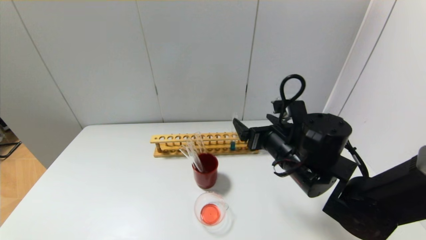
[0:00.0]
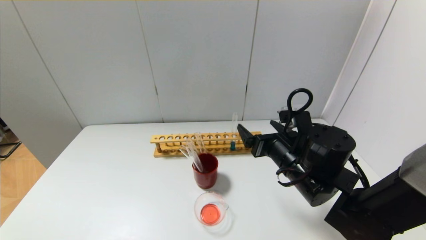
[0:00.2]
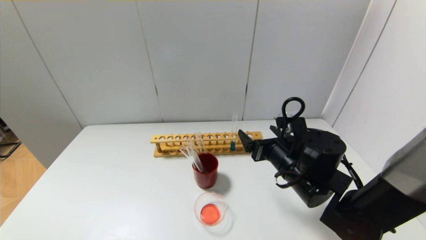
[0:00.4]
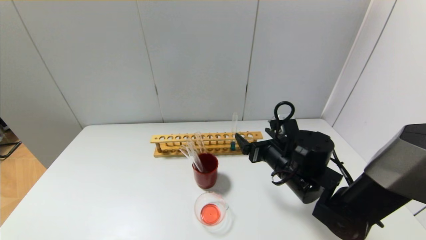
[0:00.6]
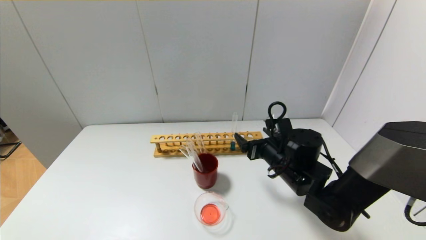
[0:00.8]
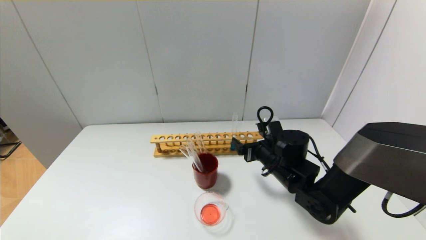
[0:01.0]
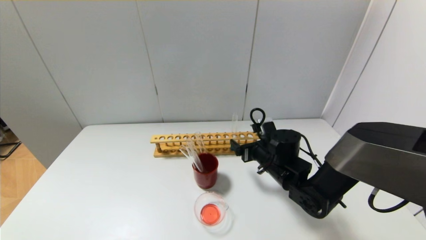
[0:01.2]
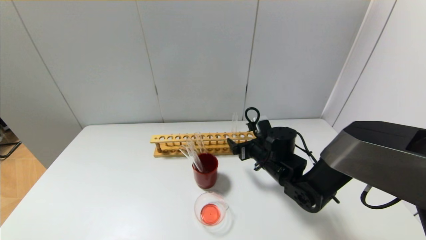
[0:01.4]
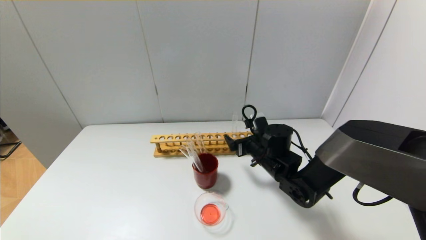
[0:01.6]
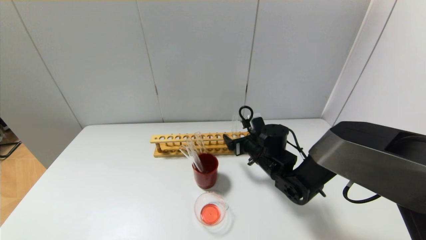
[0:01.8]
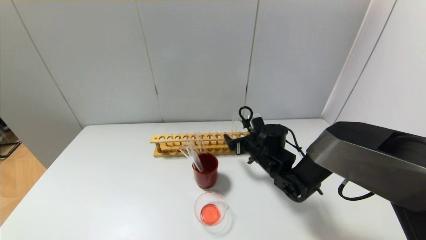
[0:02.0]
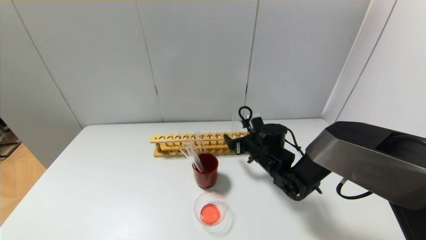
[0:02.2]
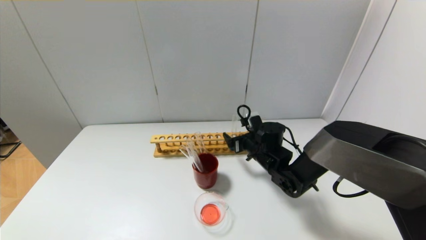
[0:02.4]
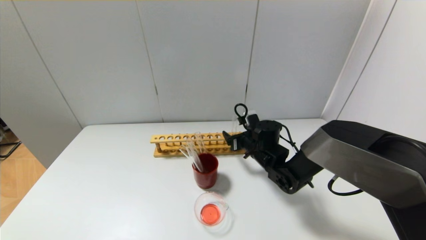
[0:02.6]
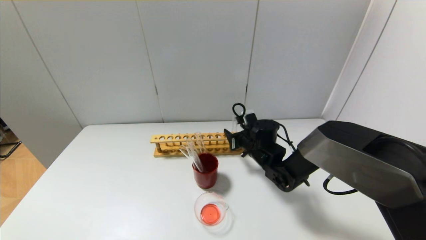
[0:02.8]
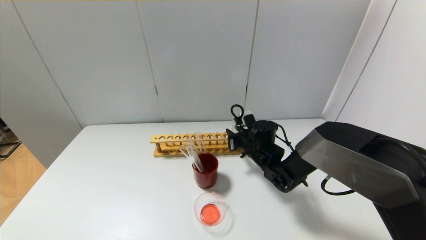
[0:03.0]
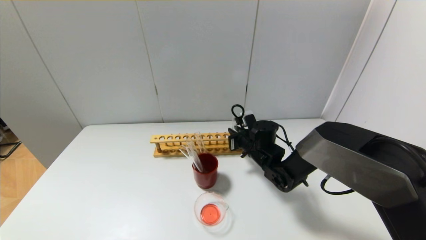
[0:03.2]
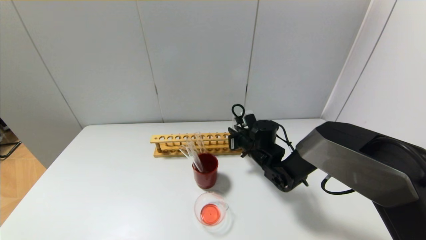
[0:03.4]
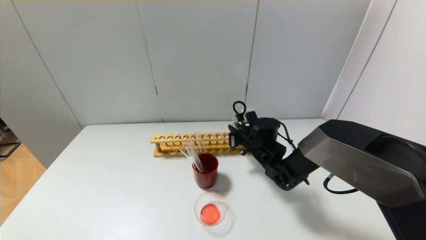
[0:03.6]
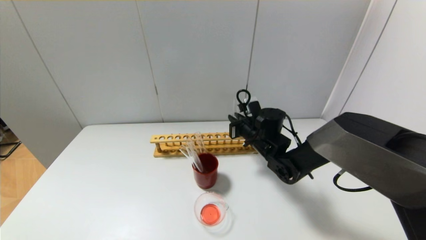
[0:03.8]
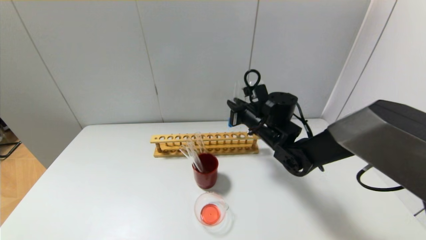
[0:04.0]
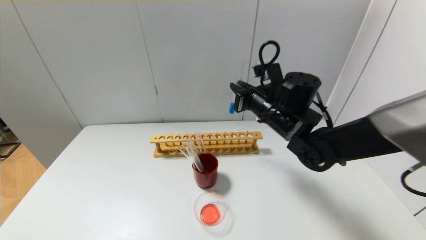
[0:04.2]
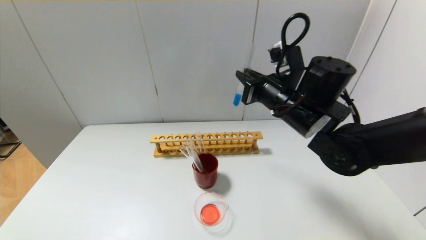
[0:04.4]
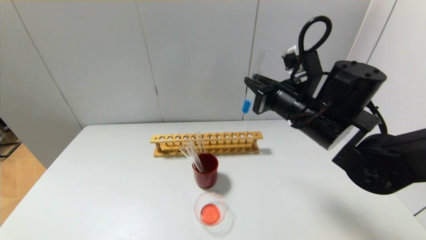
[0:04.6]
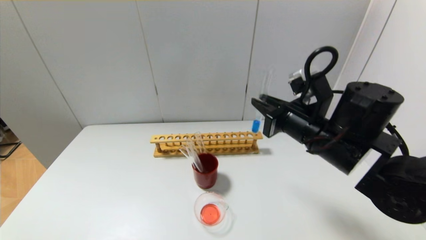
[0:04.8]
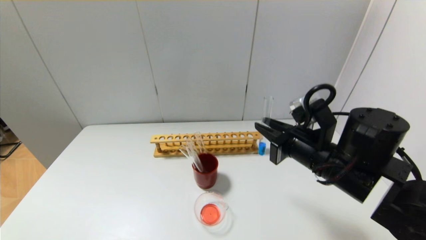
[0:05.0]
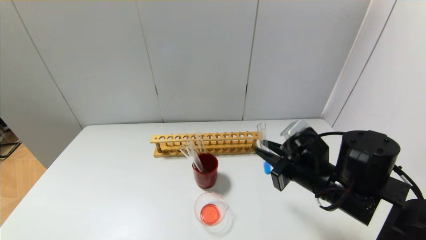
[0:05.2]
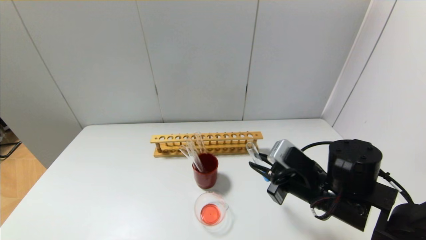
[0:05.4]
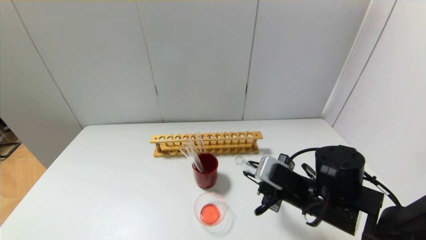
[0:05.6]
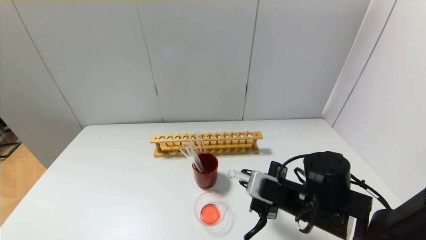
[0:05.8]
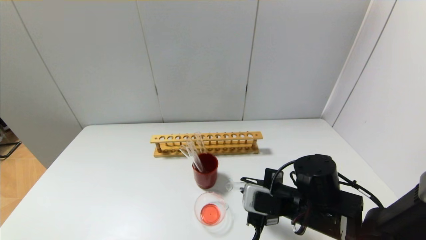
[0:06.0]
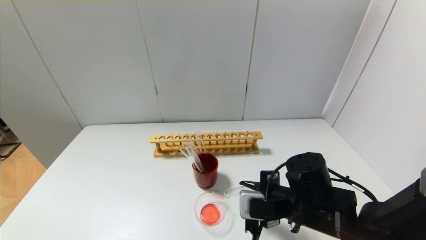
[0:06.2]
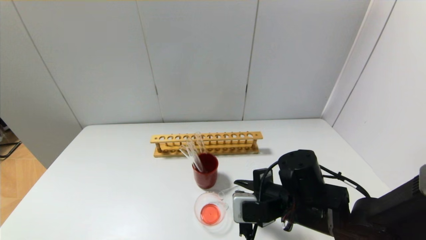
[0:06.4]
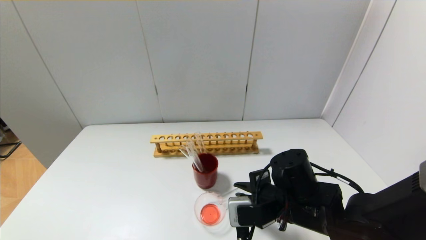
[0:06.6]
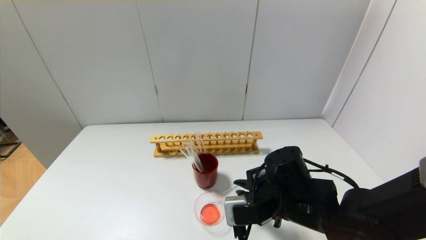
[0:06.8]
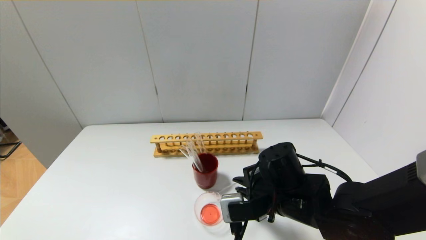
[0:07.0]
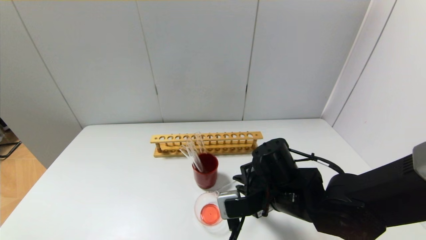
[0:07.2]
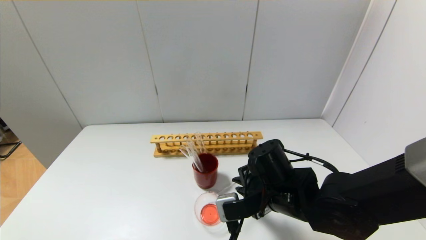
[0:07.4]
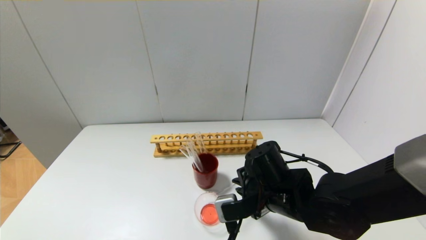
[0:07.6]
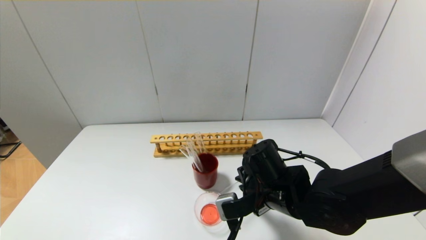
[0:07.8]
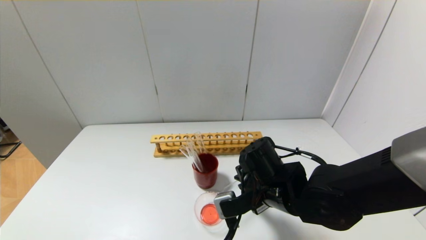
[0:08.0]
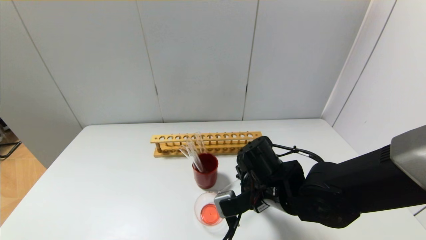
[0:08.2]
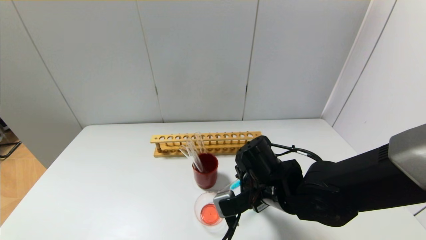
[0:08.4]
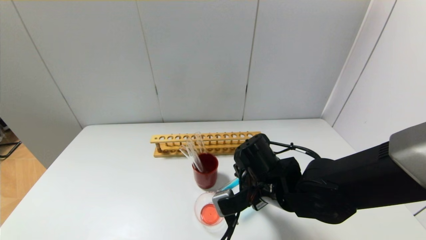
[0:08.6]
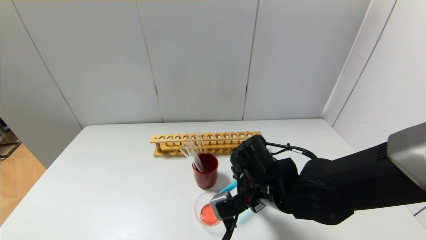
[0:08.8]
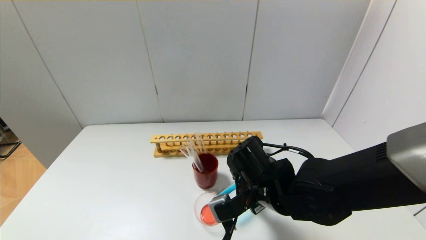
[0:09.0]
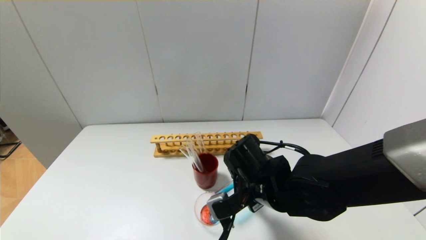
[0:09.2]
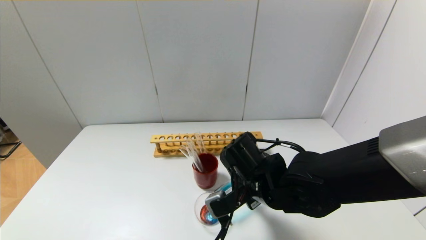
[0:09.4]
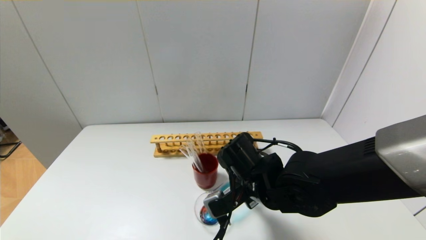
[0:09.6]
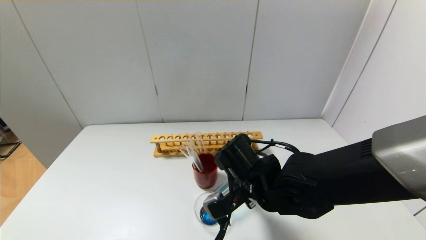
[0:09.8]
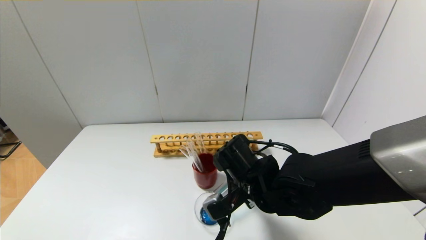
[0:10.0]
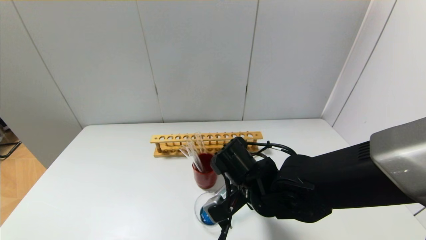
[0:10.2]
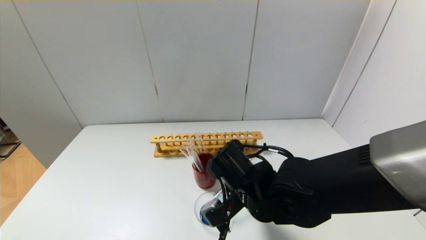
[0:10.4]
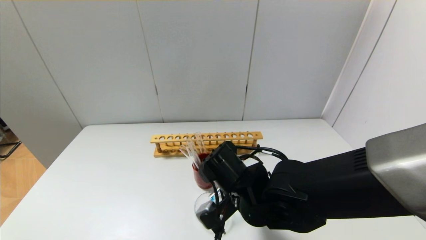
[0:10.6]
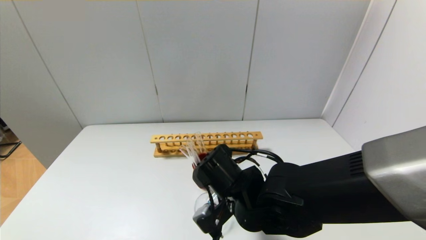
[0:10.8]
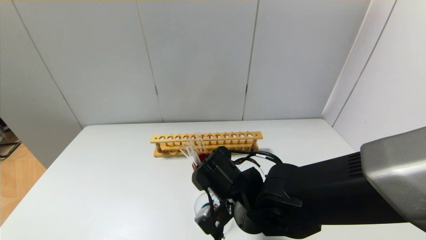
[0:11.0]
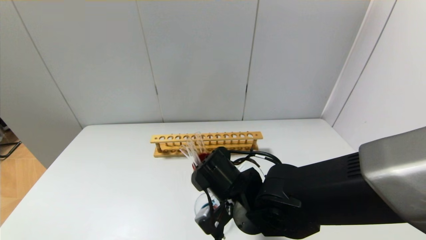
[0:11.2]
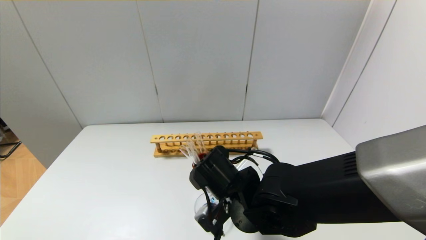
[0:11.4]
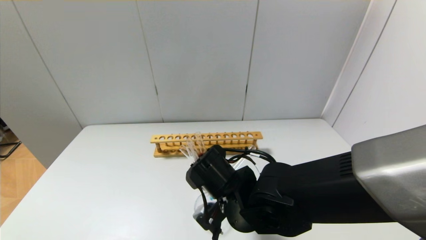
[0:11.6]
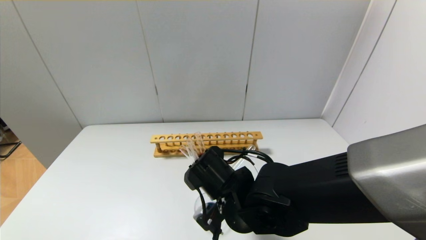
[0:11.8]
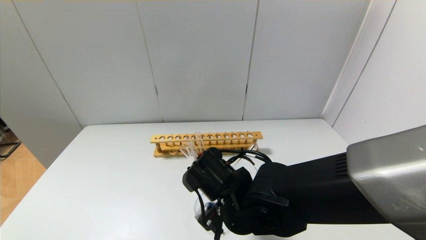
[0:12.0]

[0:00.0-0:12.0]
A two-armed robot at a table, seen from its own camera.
Step, 0:00.0 to 0:03.2: Grasp the blue reagent with the right gripper.
0:00.0 to 0:01.6: The right gripper travels forward and downward by approximately 15 cm.
0:01.6 to 0:03.0: The right gripper changes place by roughly 5 cm, and closes up.
0:03.0 to 0:04.4: The right gripper is displaced upward and backward by some 20 cm.
0:04.4 to 0:06.0: The right gripper goes some 20 cm downward and backward.
0:06.0 to 0:07.6: The right gripper heads to the left, covering about 5 cm.
0:07.6 to 0:09.0: The grippers stay close to where they were, moving slightly.
0:09.0 to 0:10.4: The grippers move only a little.
0:10.4 to 0:12.0: The grippers stay close to where they were, moving slightly.

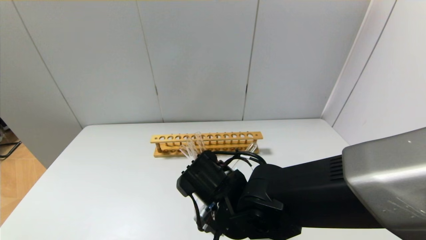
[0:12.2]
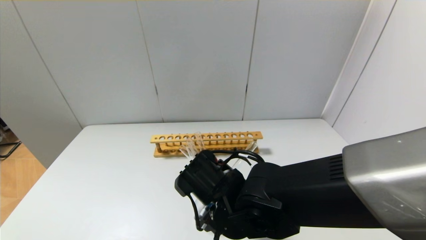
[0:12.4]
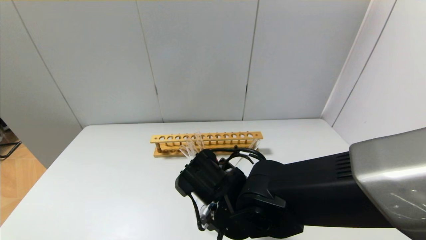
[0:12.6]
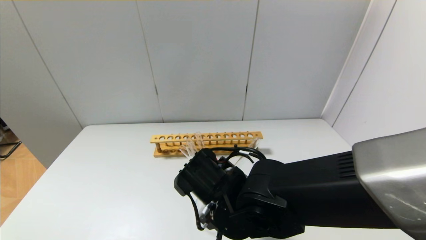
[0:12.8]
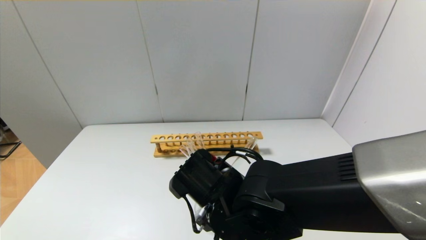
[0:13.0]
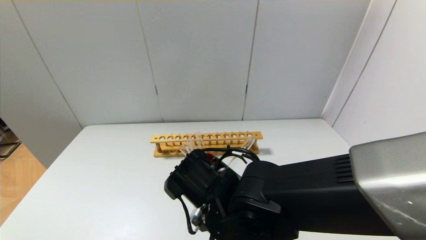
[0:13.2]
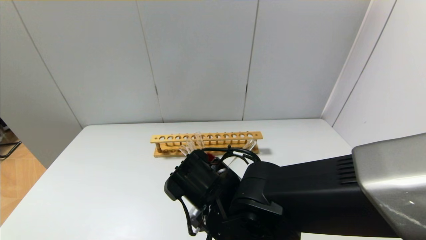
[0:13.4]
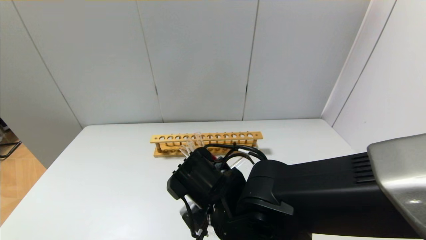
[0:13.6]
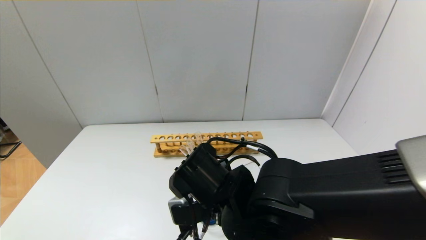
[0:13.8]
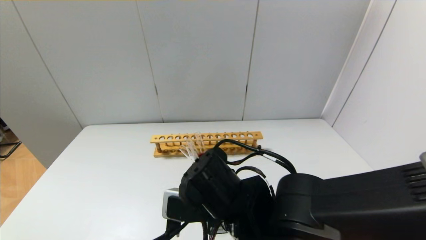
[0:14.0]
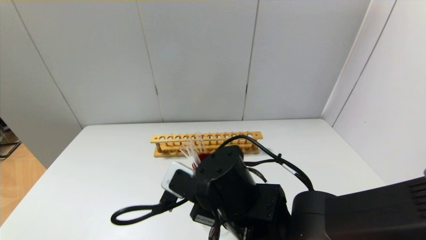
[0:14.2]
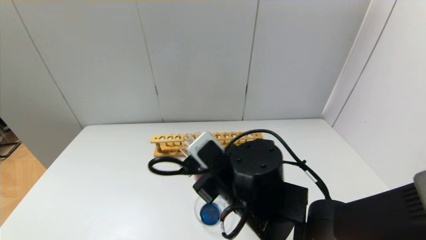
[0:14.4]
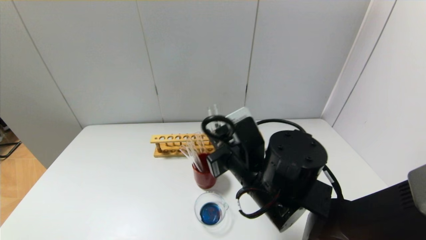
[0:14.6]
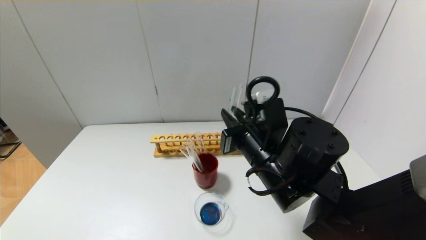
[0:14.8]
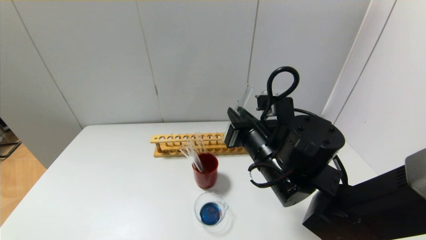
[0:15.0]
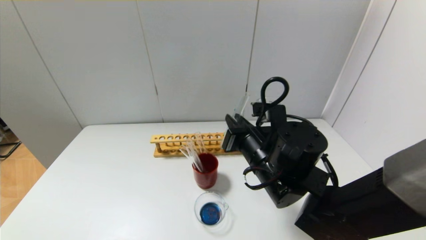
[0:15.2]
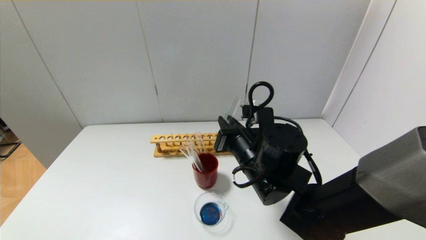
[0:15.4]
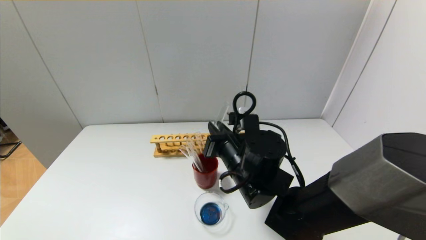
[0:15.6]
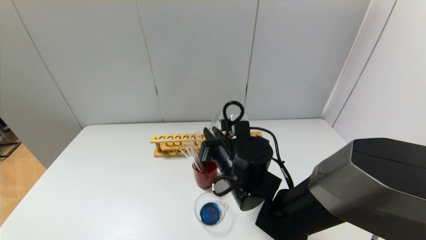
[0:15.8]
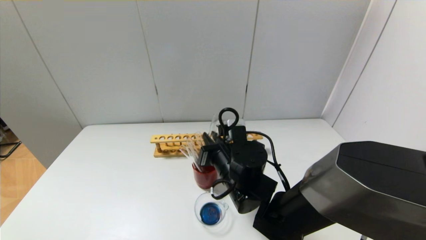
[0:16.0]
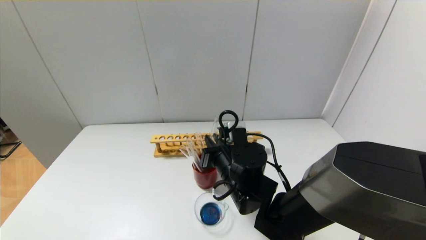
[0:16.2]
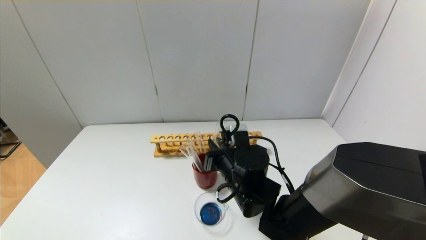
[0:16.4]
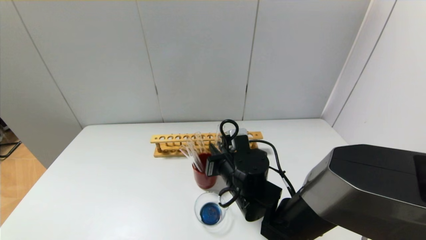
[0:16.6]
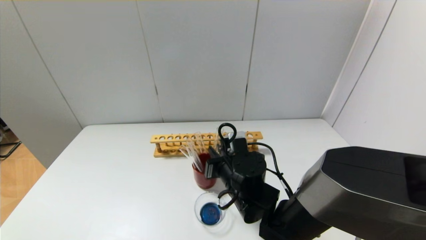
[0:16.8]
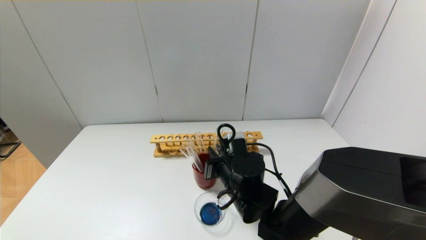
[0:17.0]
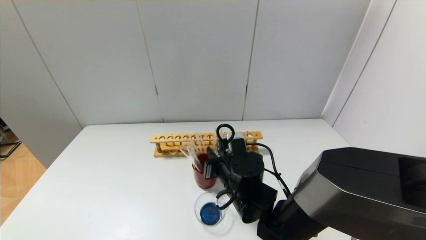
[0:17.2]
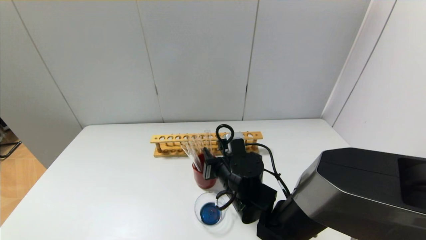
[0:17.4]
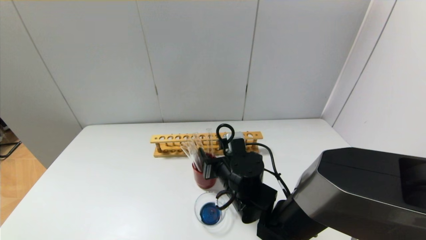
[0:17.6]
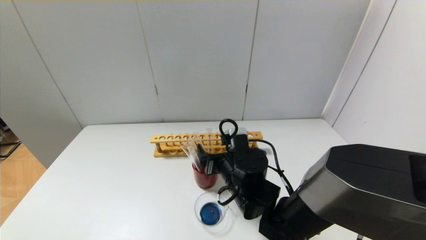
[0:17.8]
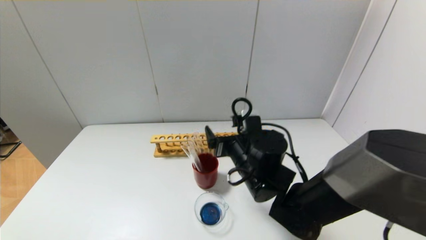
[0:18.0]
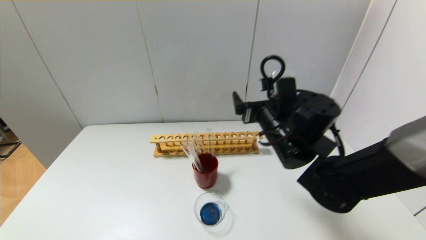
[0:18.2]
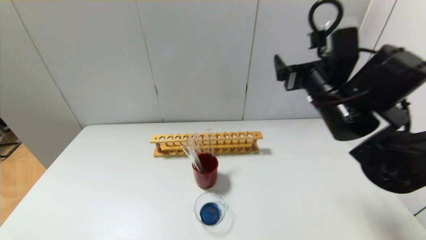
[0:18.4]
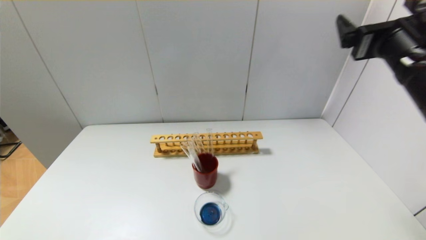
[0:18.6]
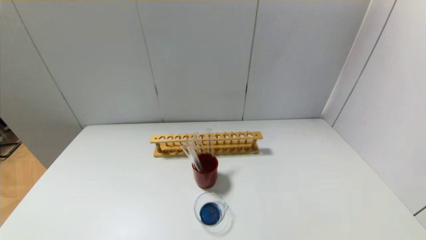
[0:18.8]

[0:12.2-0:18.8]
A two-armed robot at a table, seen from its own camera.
Step, 0:12.2 to 0:14.2: Pour the blue reagent into the graduated cylinder with the right gripper.
Step, 0:14.4 to 0:17.4: Place the test tube into the brown cup with the right gripper.
0:13.8 to 0:15.4: The right gripper is displaced forward and to the right by roughly 10 cm.
0:15.4 to 0:17.2: The right gripper heads downward, covering about 10 cm.
0:17.2 to 0:18.8: The right gripper moves upward and to the right, approximately 40 cm, and opens its fingers.
